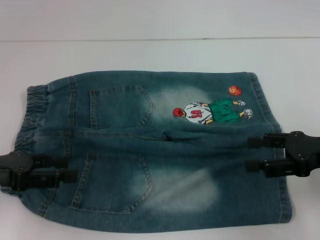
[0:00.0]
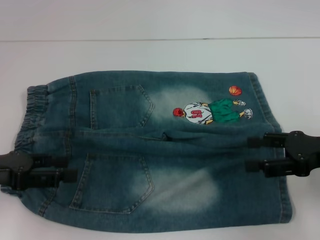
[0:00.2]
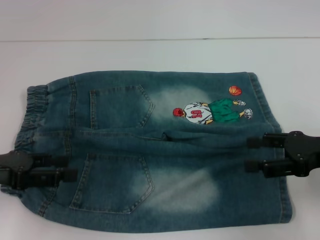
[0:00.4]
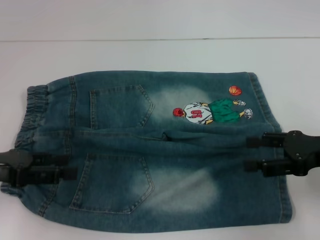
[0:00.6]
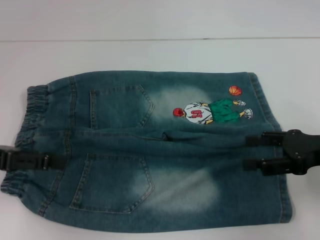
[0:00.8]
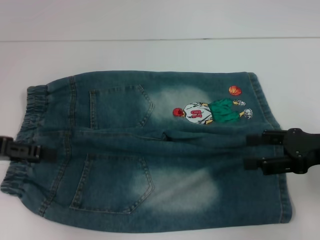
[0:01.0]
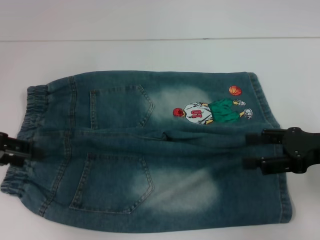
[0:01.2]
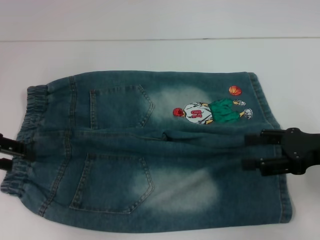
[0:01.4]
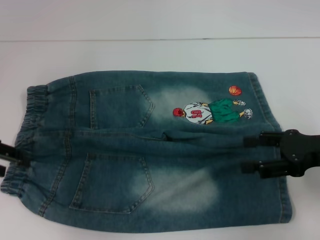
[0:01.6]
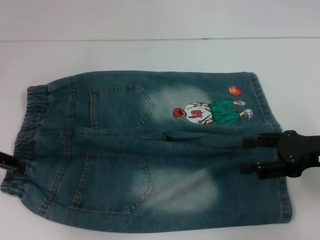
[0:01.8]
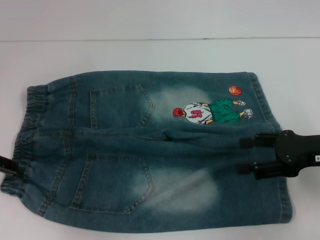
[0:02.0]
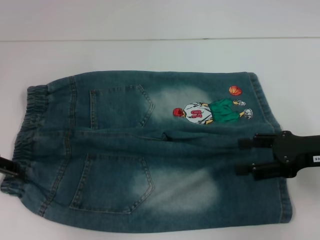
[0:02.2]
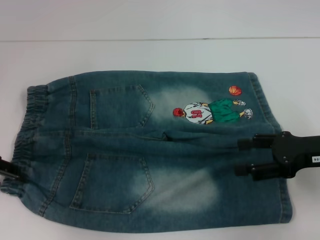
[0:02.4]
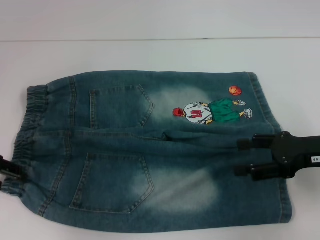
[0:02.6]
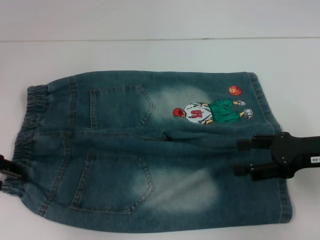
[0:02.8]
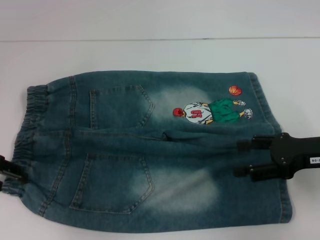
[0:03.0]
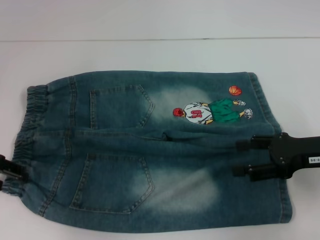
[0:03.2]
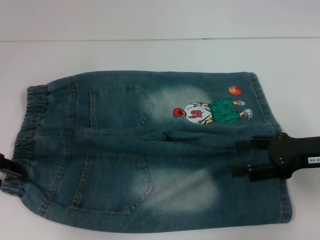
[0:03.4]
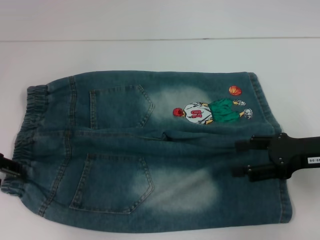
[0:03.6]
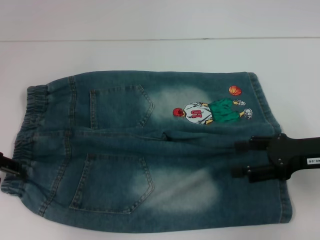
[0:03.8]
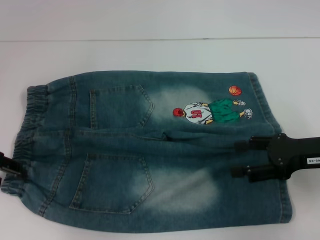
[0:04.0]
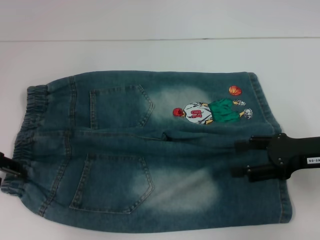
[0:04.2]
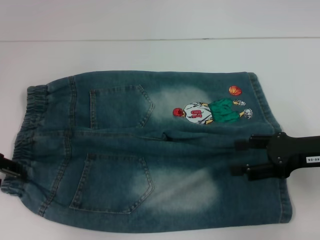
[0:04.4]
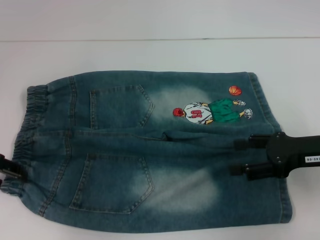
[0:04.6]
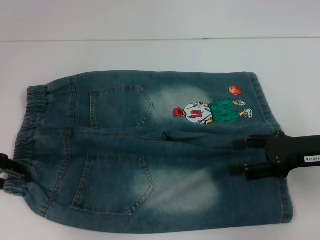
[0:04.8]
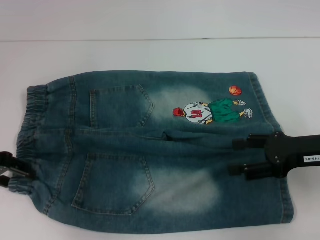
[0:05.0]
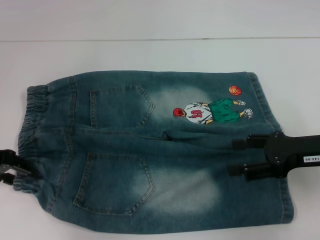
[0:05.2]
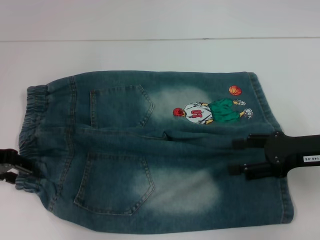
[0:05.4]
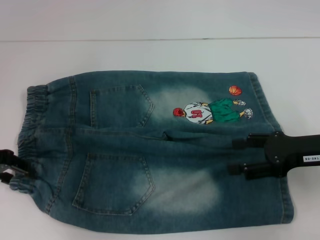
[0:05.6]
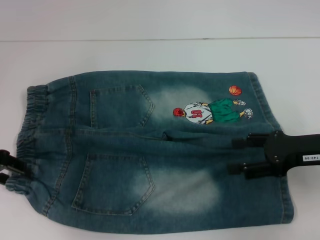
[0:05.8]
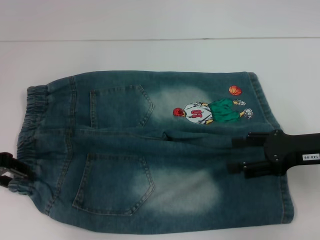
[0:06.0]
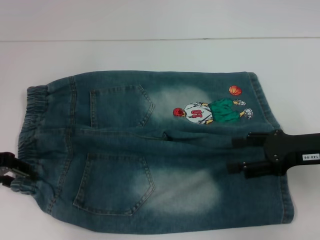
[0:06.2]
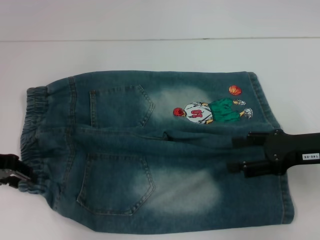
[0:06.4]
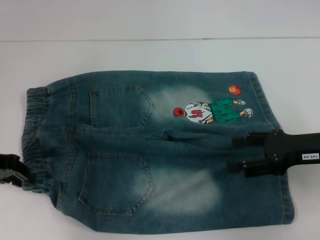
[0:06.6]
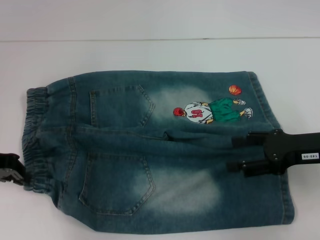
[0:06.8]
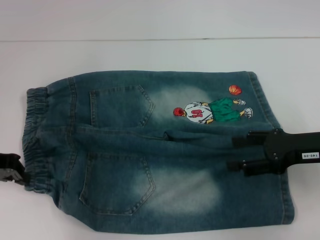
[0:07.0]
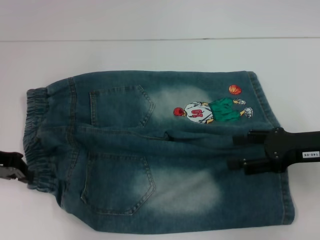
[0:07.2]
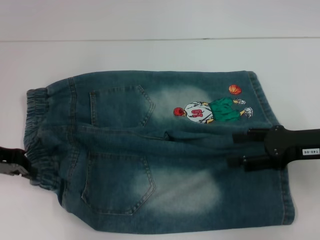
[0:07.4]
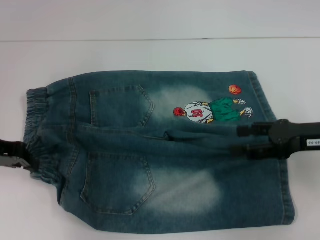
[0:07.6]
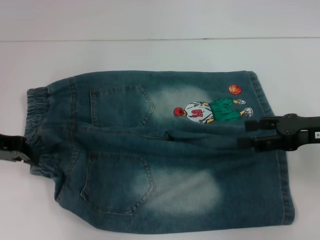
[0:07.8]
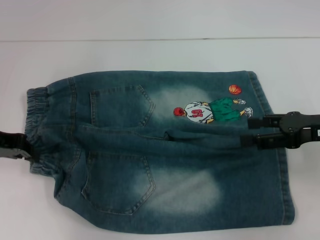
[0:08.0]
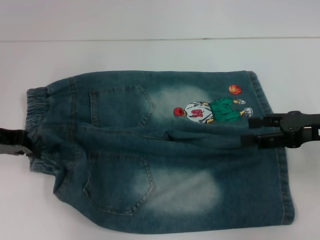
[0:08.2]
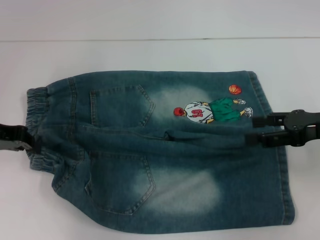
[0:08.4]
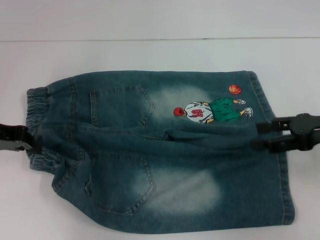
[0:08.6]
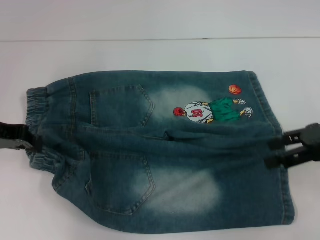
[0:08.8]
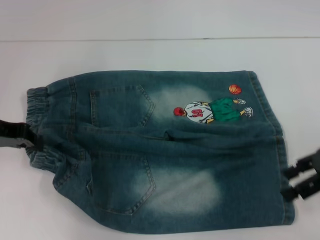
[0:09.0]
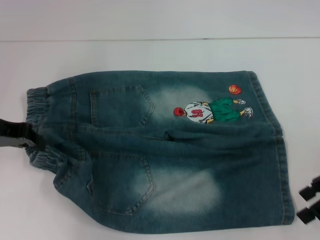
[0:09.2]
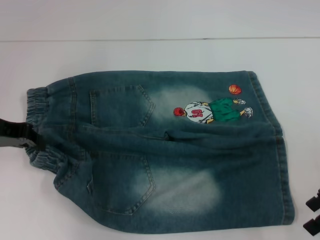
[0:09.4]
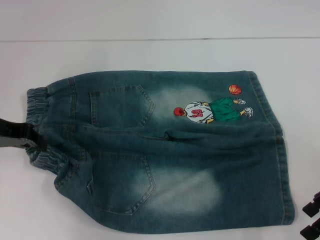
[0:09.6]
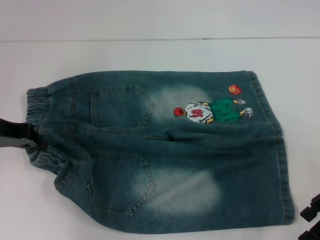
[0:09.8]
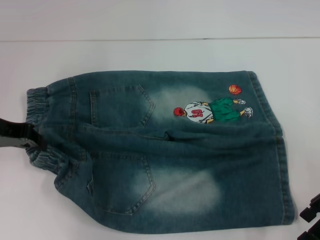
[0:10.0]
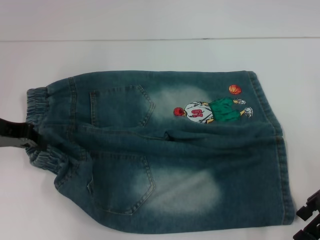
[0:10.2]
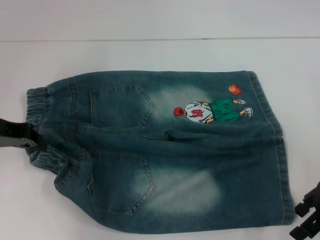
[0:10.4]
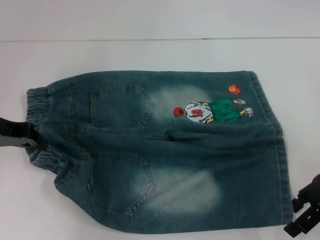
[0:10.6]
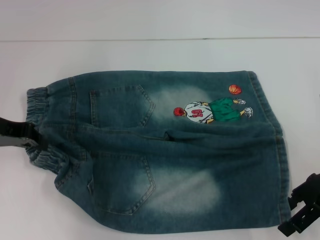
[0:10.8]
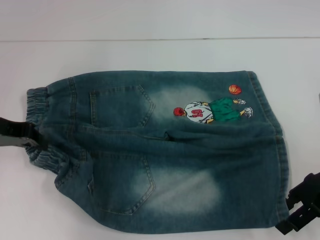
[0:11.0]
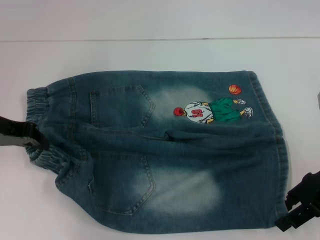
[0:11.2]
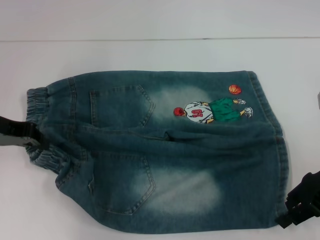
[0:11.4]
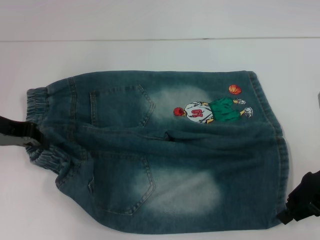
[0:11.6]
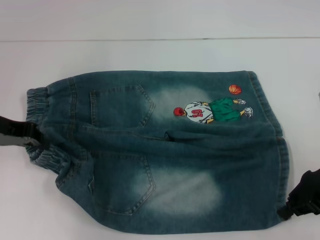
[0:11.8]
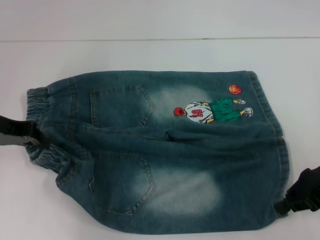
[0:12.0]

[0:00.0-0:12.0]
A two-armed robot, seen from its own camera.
Step, 0:00.0 to 0:07.4: Hold the lower left waistband with your left hand.
Step, 0:07.6 to 0:11.8: Grab the lower right pant leg with your right hand.
0:00.0 to 0:01.6: The left gripper moves forward, some 5 cm.
0:01.6 to 0:03.0: The grippers make only small movements.
0:03.0 to 0:04.4: Neither gripper changes place.
0:04.4 to 0:06.0: The grippers move only a little.
0:06.0 to 0:07.6: The left gripper closes its fingers.
0:07.6 to 0:09.0: The right gripper ends up approximately 5 cm from where it was.
0:10.4 to 0:12.0: The right gripper closes up.

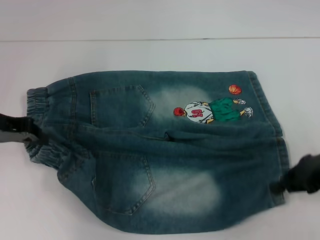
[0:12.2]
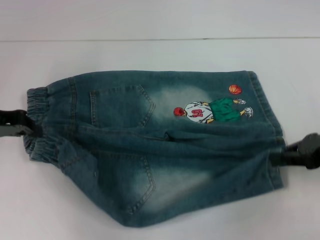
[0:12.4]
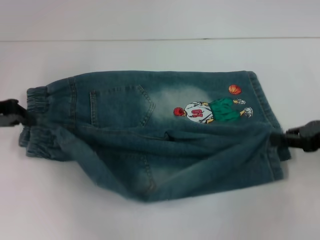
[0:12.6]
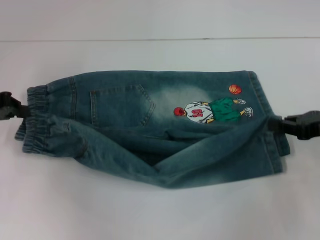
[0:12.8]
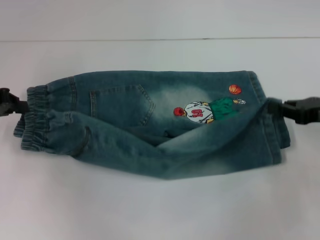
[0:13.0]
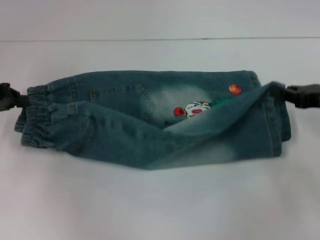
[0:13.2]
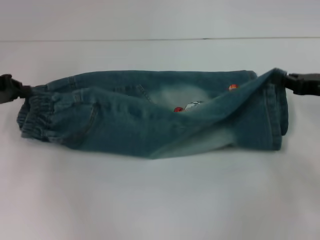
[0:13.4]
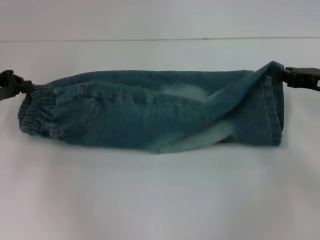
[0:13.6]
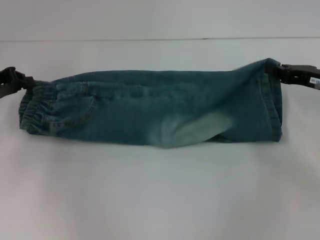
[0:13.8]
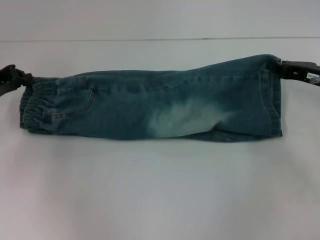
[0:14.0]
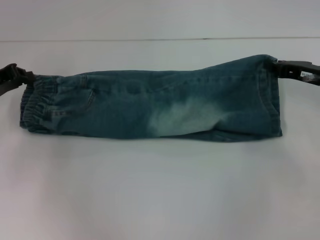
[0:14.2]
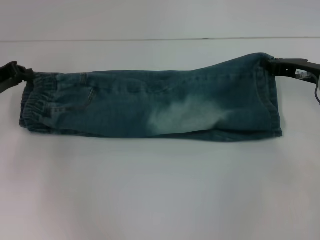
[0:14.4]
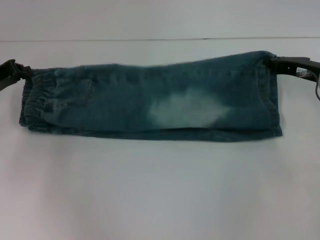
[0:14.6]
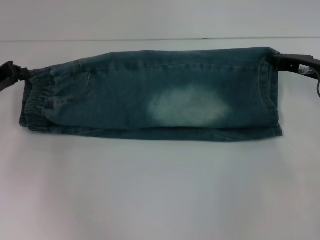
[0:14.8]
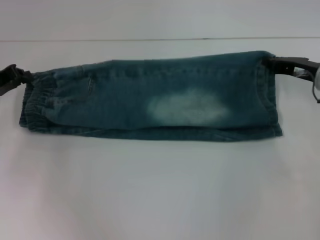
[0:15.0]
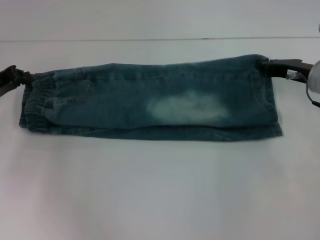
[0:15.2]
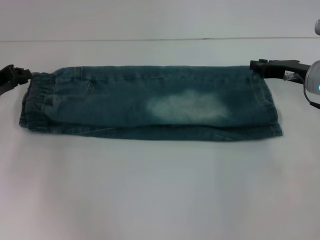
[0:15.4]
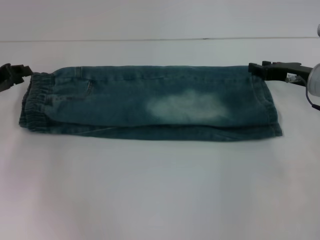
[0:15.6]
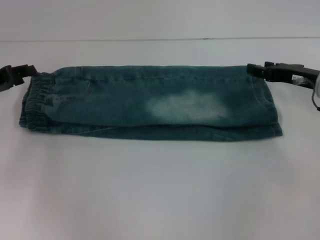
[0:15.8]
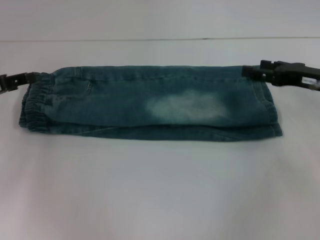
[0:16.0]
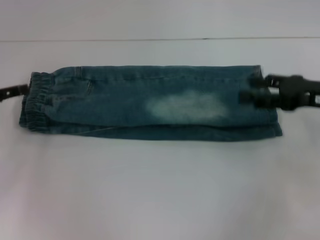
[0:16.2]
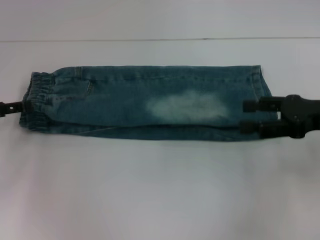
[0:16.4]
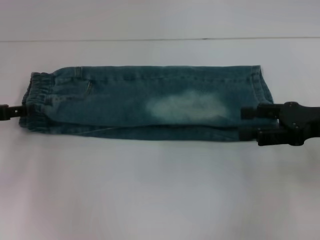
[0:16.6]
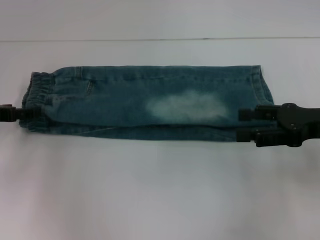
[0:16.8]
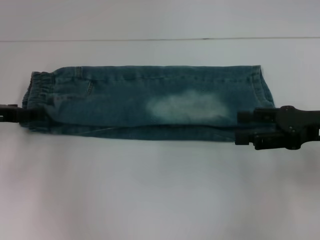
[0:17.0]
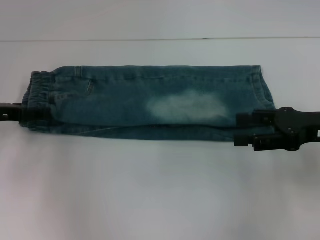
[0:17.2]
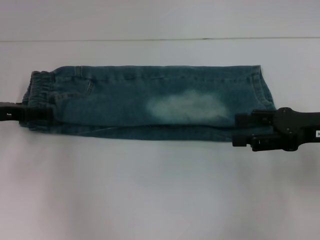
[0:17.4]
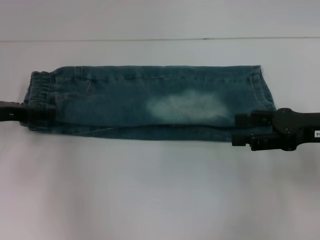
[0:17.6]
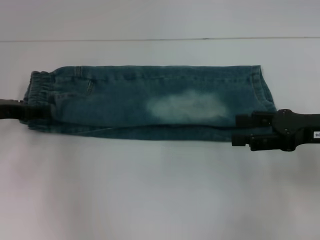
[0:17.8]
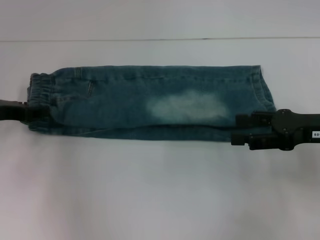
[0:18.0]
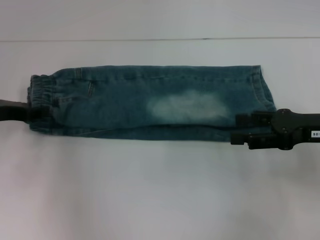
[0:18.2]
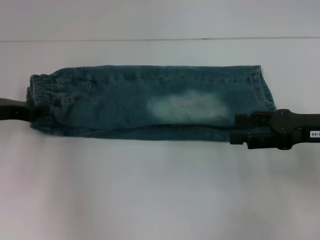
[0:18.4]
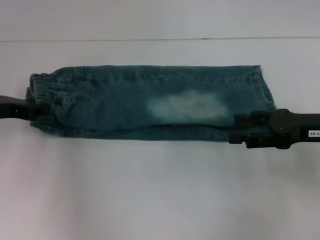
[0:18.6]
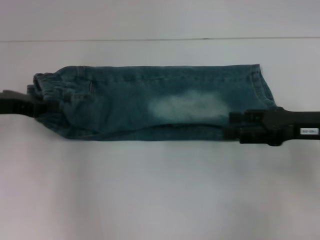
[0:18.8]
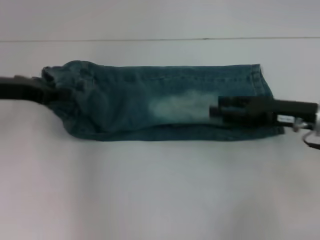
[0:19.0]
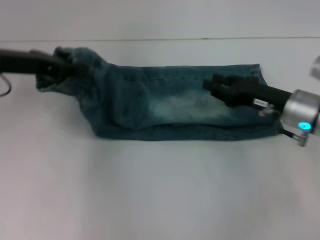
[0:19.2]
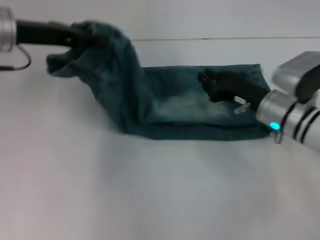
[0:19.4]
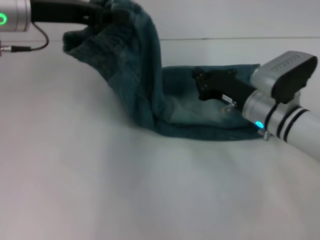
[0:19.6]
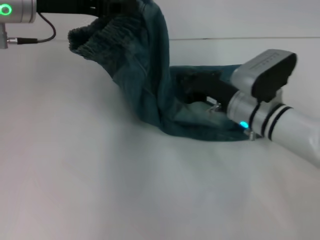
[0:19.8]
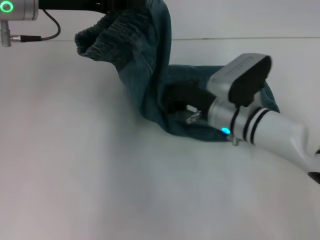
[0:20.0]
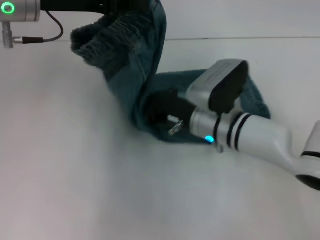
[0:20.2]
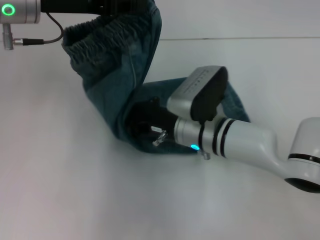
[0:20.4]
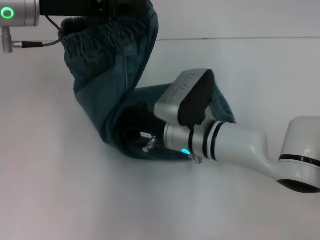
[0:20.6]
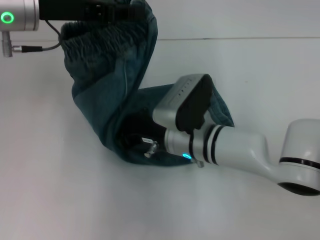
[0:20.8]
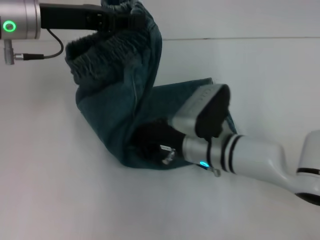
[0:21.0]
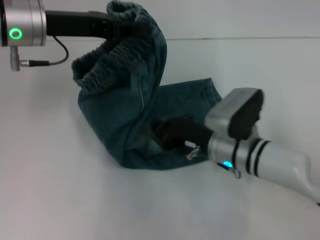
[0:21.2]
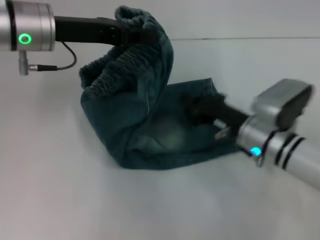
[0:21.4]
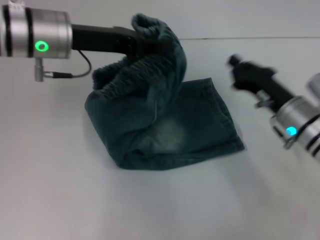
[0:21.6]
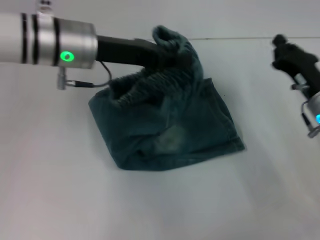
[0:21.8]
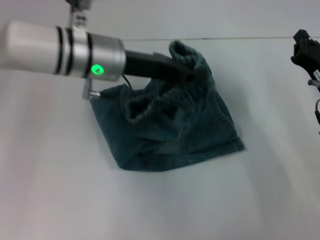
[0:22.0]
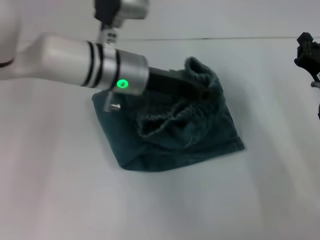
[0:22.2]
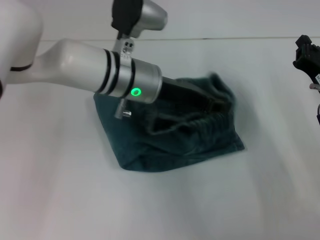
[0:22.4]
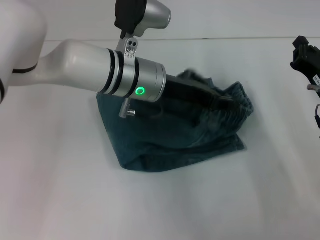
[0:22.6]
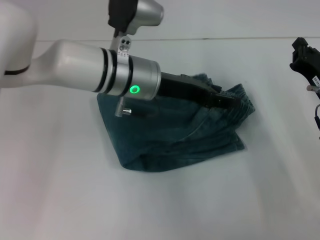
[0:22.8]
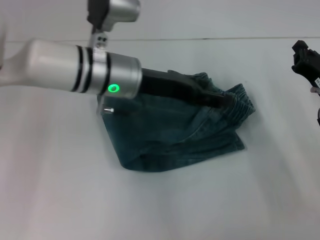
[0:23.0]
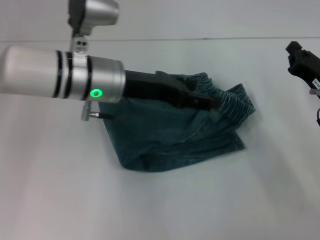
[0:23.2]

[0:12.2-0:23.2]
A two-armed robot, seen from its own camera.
Step, 0:12.2 to 0:15.2: Fold upward with your right hand.
Step, 0:15.4 to 0:18.6: Hold the waistband with your left hand.
Step, 0:18.8 to 0:20.8: Press the middle of the pants with your right hand.
Step, 0:21.0 to 0:22.6: Fold to the right with your left hand.
0:12.2 to 0:13.8: The right gripper moves forward, roughly 5 cm.
0:13.8 to 0:15.4: The right gripper moves some 5 cm.
0:15.4 to 0:17.0: The right gripper shifts approximately 10 cm backward, and opens up, while the left gripper opens its fingers.
0:17.0 to 0:18.4: The left gripper closes.
0:18.4 to 0:20.0: The left gripper goes approximately 20 cm upward, to the right and forward, while the right gripper shifts roughly 20 cm to the left and downward, and closes.
0:20.0 to 0:21.6: The right gripper moves to the right, about 10 cm. Meanwhile the left gripper ends up approximately 5 cm from where it was.
0:21.6 to 0:23.2: Both grippers travel together to the right, roughly 5 cm. The left gripper opens its fingers.
